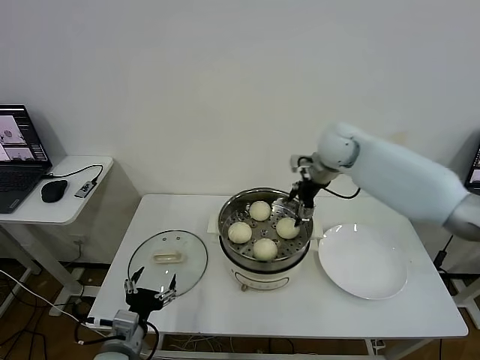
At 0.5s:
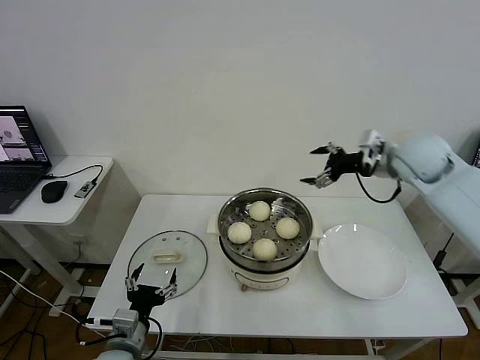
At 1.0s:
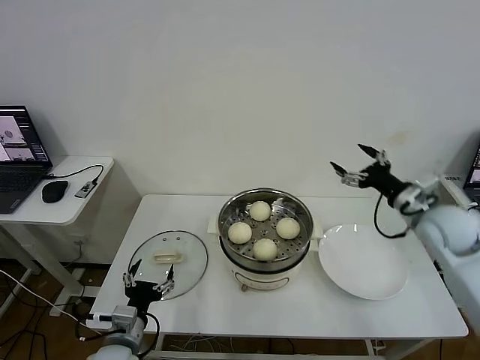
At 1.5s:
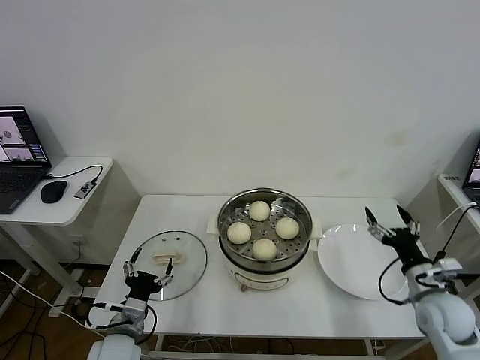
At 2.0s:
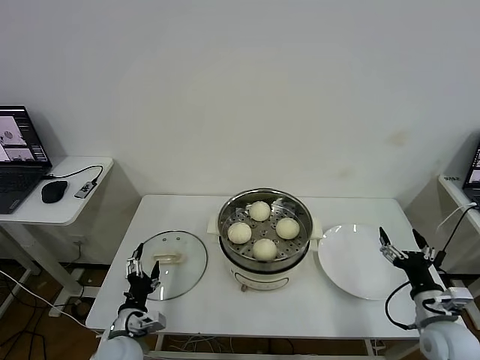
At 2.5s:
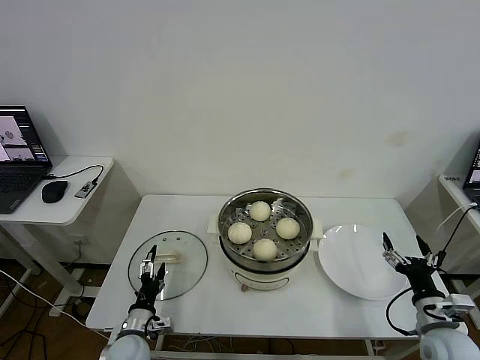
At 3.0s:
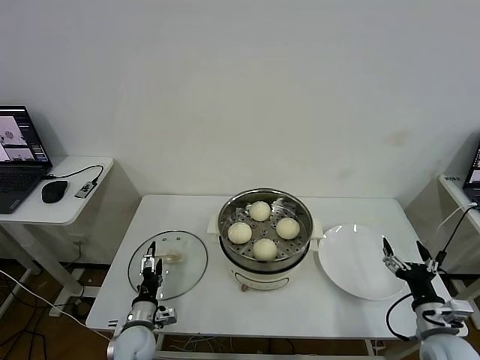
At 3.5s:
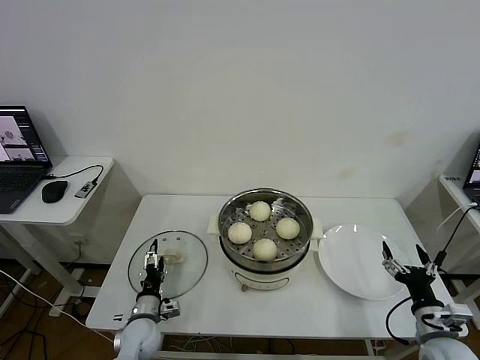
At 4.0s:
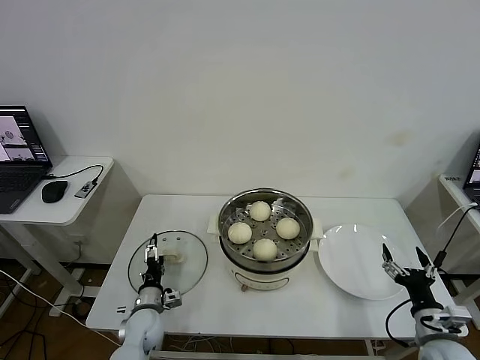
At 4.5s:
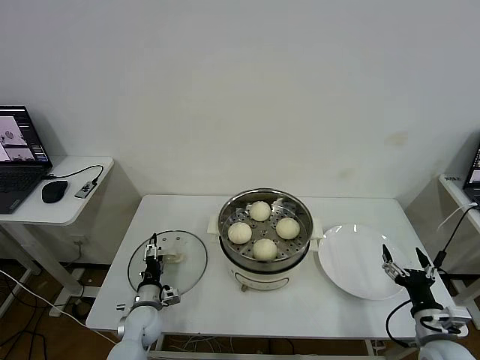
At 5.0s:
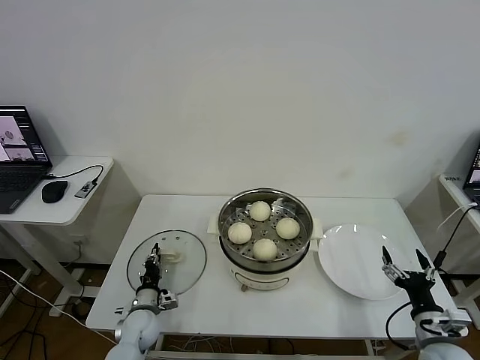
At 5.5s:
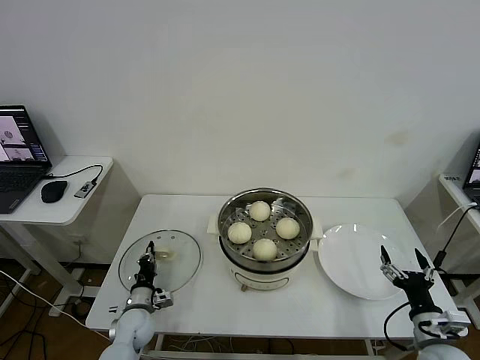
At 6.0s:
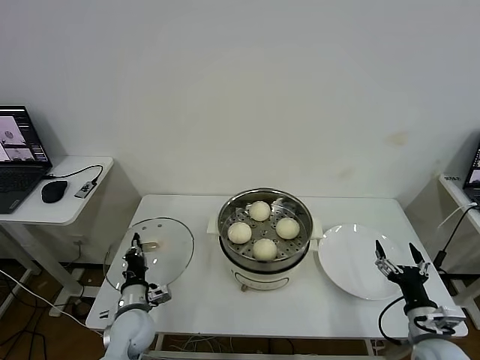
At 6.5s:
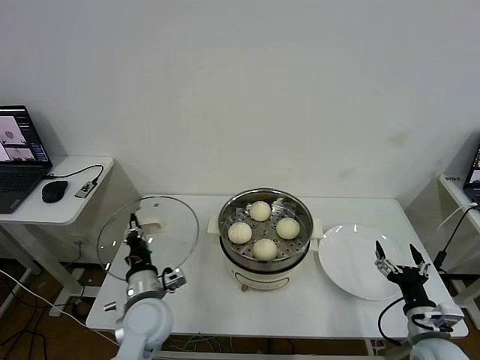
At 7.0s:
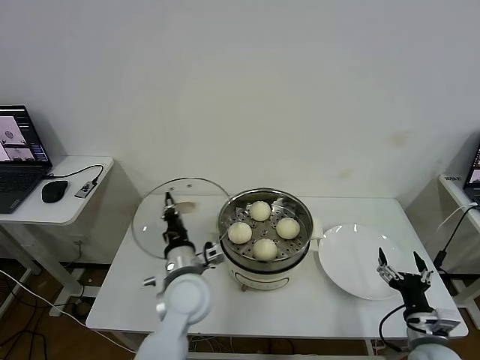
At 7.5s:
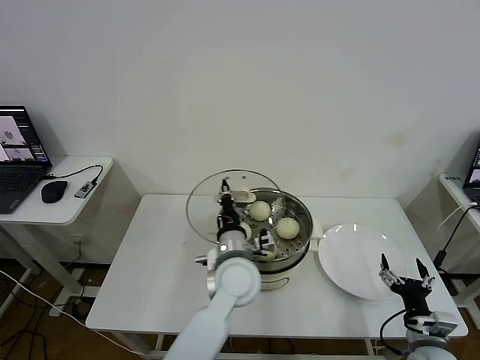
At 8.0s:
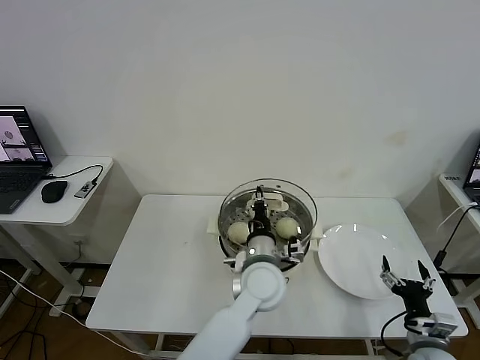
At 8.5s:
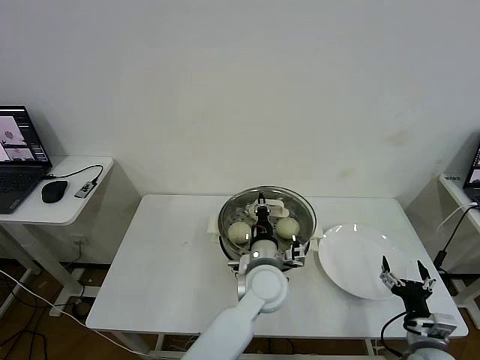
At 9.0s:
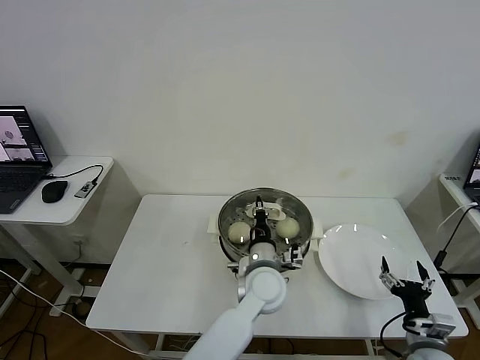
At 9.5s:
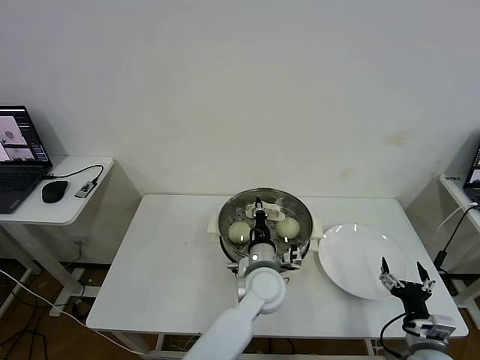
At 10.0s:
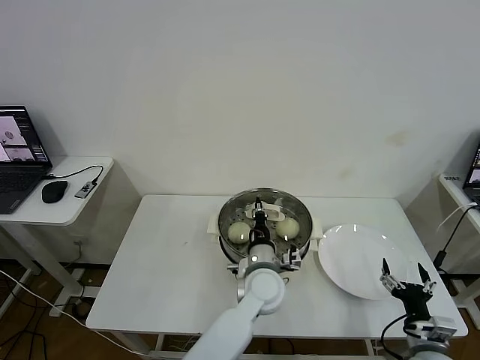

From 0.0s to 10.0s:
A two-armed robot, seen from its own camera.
Task of the whole recording: take steamed baozi put them in steamer then cover it.
Step, from 0.0s to 5.5s: Grasp the pot lid with left gripper.
From 0.0s to 2.0s: The left gripper goes approximately 10 cm downward. The right gripper heads backward, downward and to the right, covering about 50 cm.
From 2.0s to 4.0s: The left gripper travels forward and downward by about 10 cm.
From 4.0s to 6.0s: The left gripper is displaced upward by about 5 cm, and closes.
From 6.0s to 8.0s: The left gripper travels to the right and upward by some 35 cm.
From 8.0s to 10.0s: The left gripper travels downward by some 5 cm.

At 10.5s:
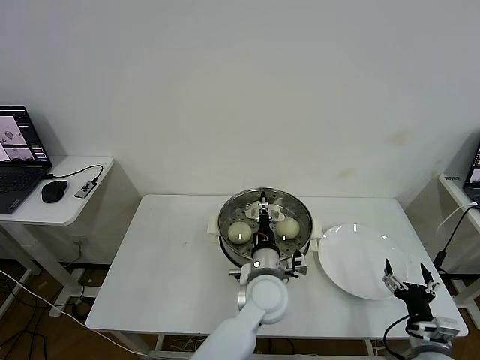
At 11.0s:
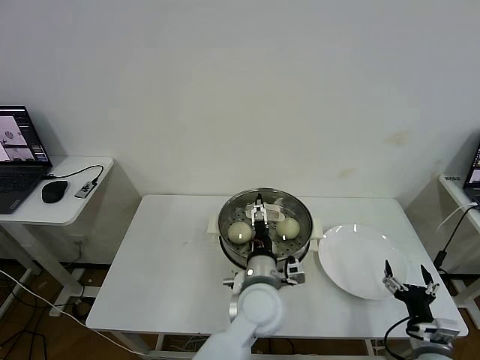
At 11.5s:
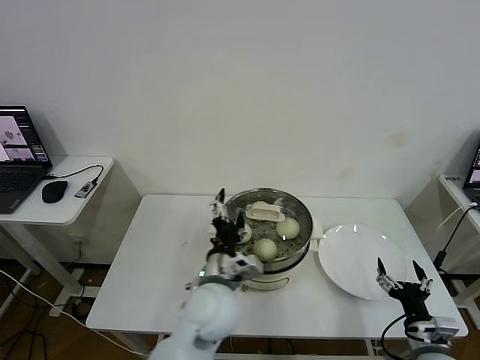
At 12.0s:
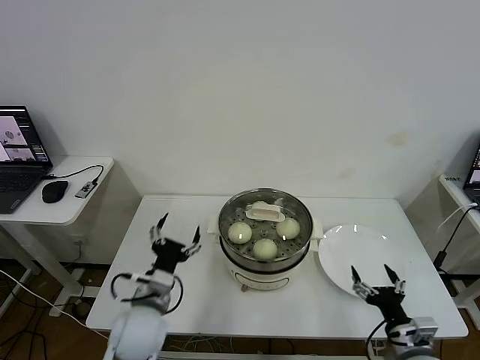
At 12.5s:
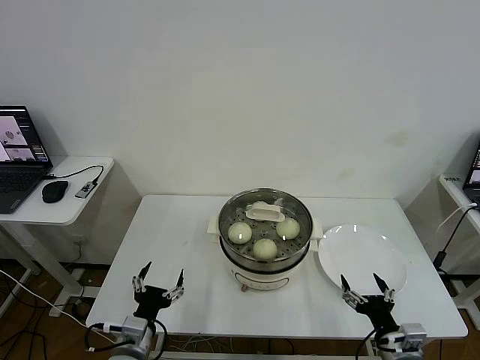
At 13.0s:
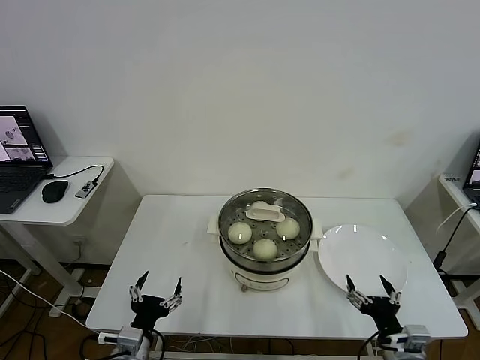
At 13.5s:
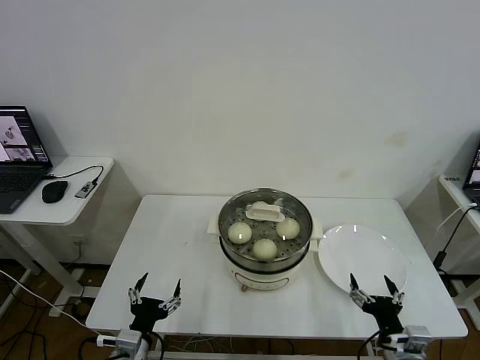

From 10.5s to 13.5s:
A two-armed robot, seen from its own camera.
Task of the whole recording: take steamed baozi put them in steamer then cover it.
From 10.5s to 12.0s: The left gripper heads to the left, covering some 25 cm, and opens.
From 12.0s to 13.5s: The left gripper heads backward, downward and to the left, covering some 15 cm.
